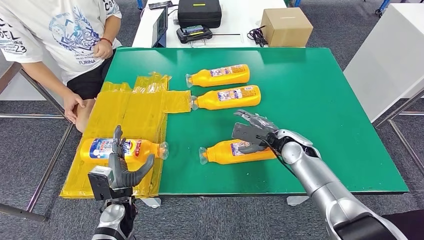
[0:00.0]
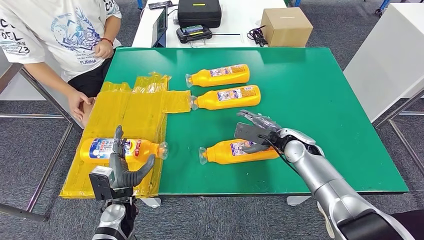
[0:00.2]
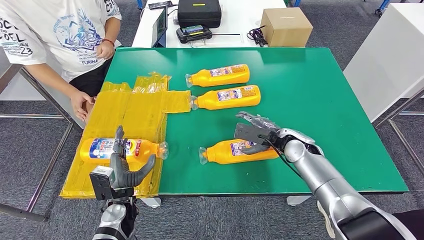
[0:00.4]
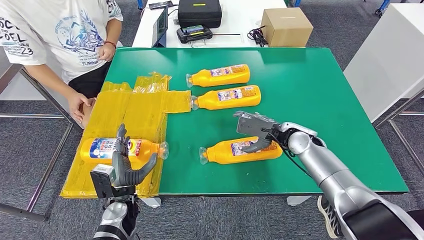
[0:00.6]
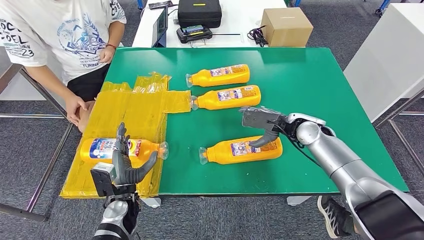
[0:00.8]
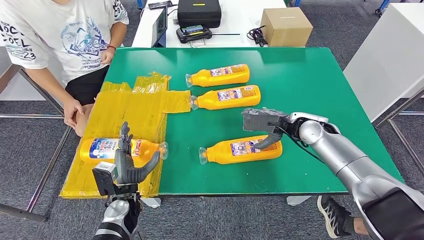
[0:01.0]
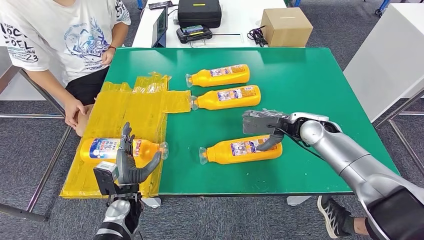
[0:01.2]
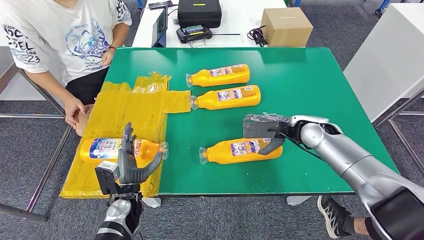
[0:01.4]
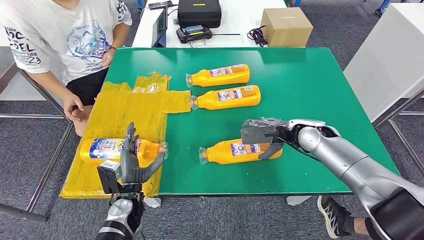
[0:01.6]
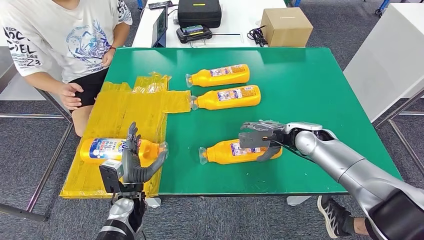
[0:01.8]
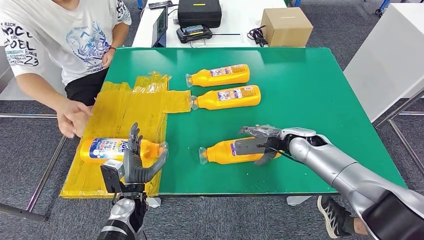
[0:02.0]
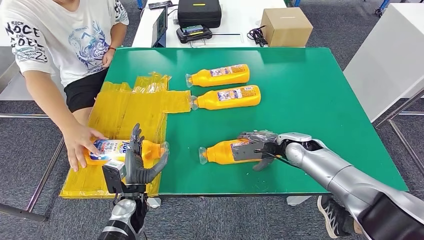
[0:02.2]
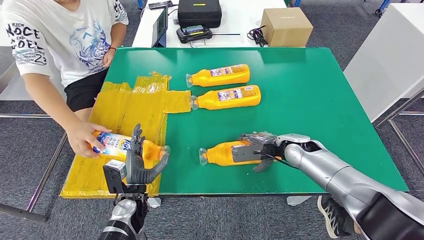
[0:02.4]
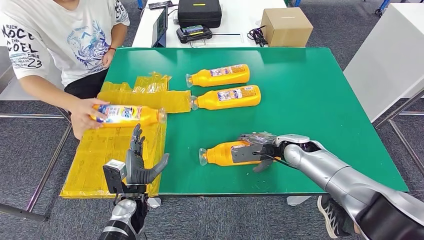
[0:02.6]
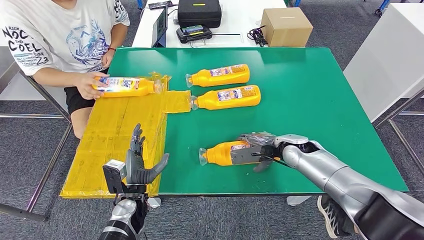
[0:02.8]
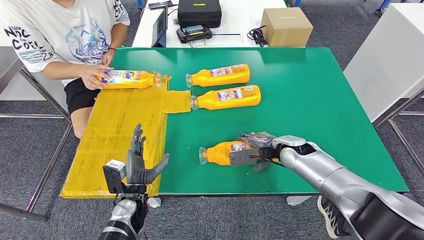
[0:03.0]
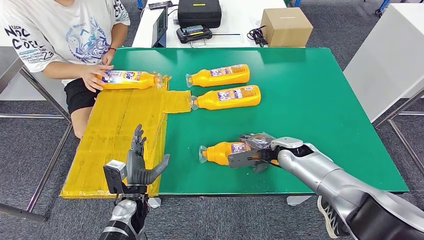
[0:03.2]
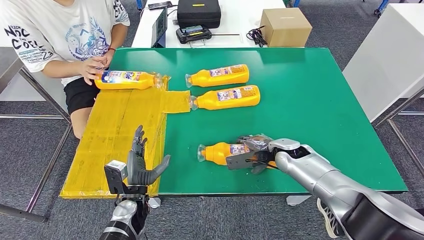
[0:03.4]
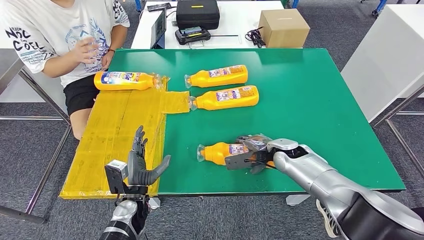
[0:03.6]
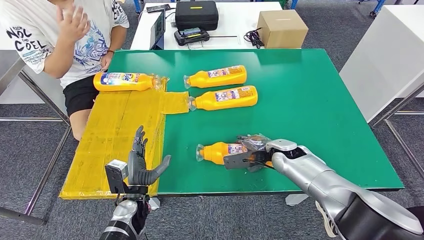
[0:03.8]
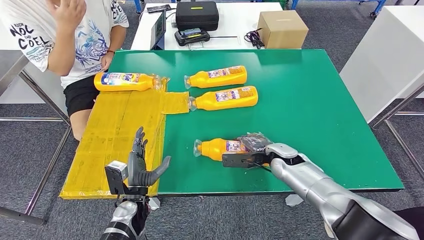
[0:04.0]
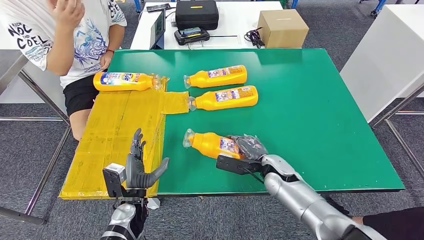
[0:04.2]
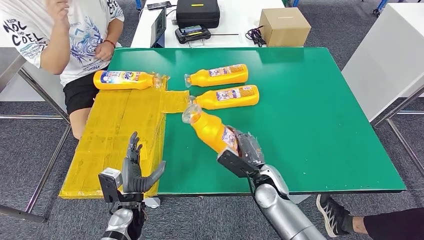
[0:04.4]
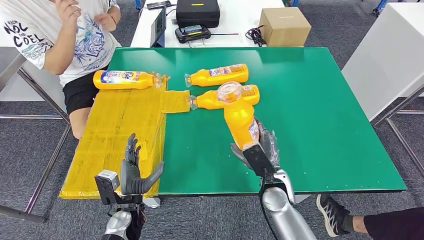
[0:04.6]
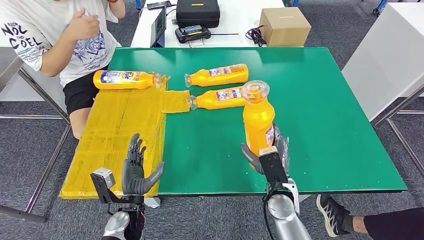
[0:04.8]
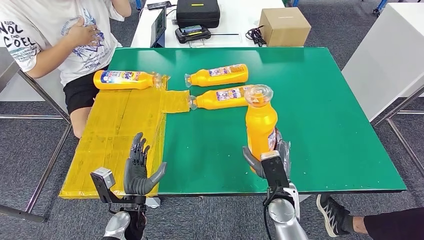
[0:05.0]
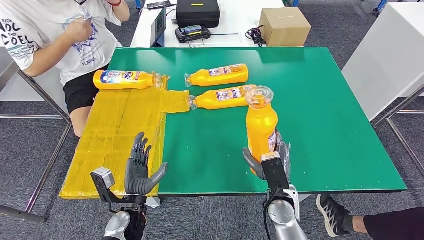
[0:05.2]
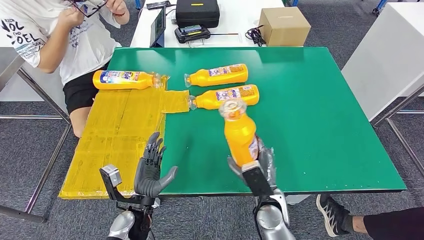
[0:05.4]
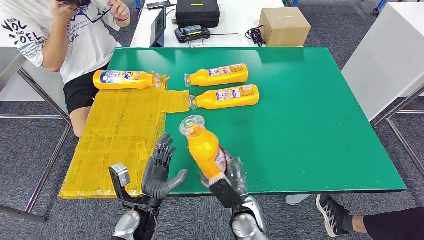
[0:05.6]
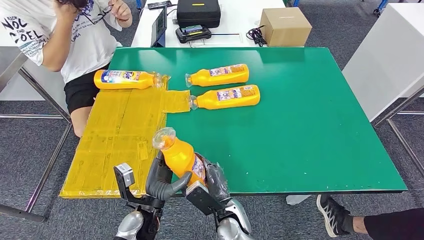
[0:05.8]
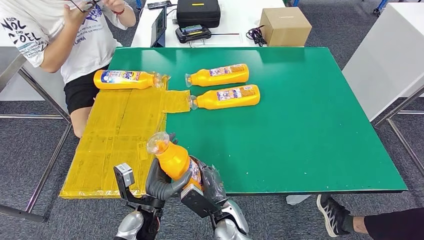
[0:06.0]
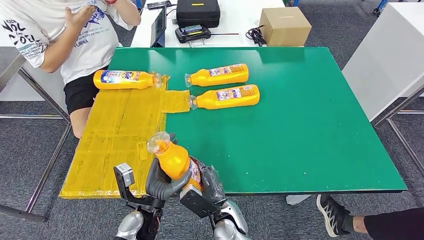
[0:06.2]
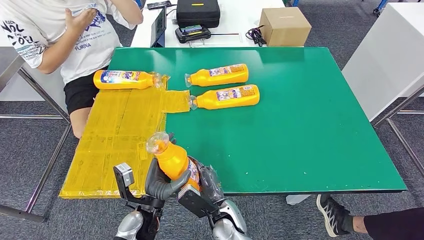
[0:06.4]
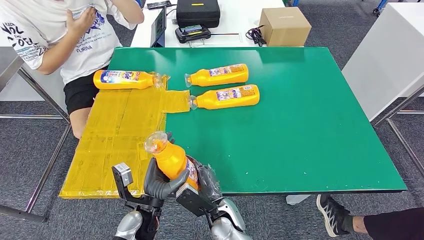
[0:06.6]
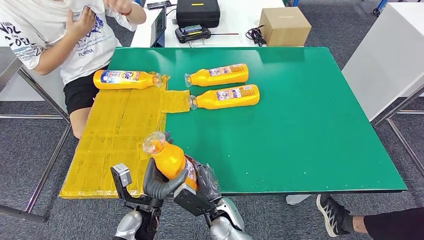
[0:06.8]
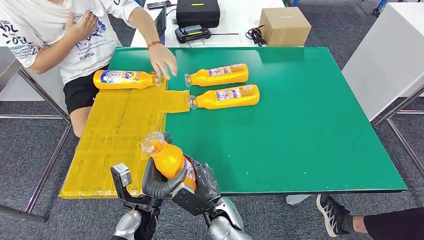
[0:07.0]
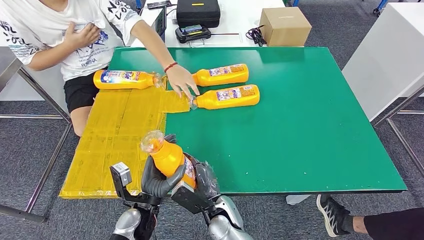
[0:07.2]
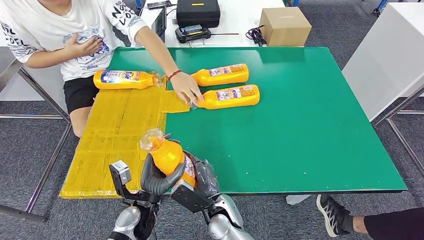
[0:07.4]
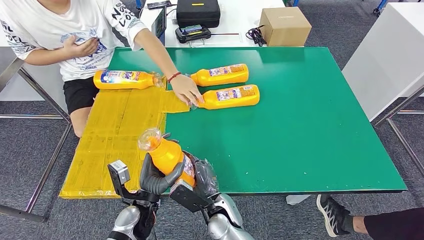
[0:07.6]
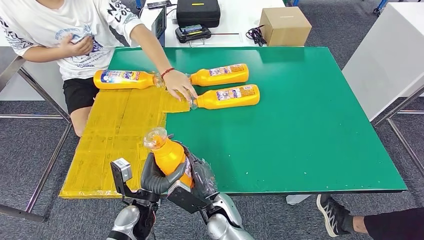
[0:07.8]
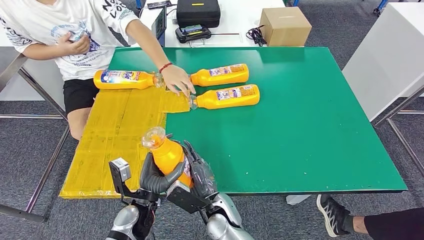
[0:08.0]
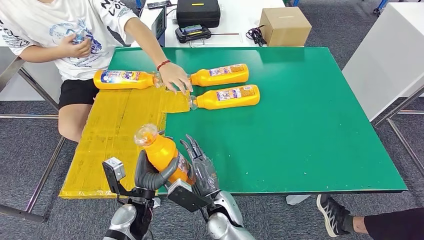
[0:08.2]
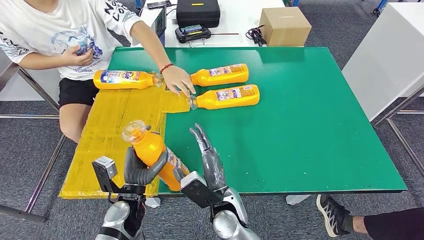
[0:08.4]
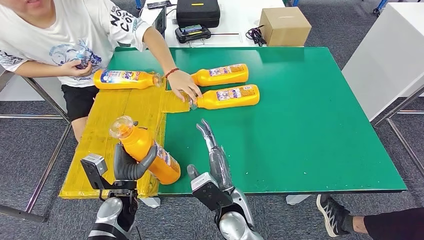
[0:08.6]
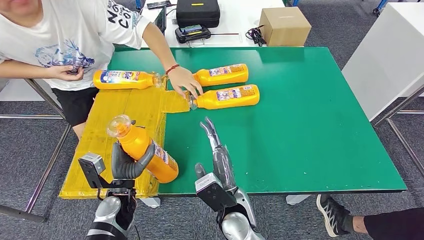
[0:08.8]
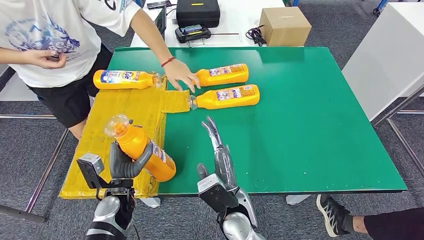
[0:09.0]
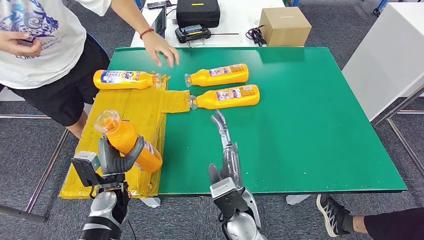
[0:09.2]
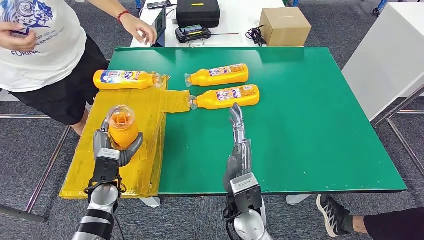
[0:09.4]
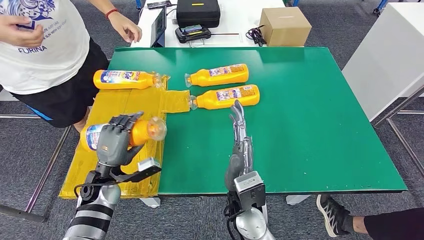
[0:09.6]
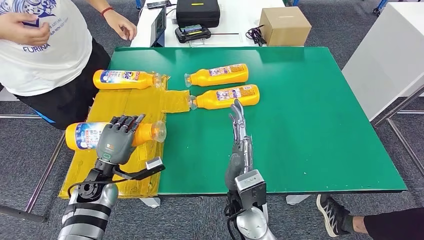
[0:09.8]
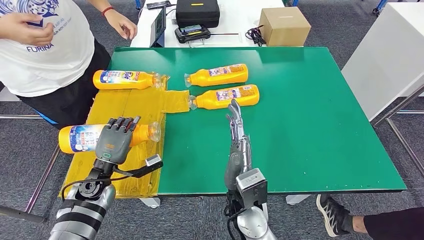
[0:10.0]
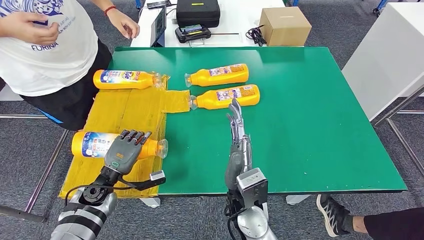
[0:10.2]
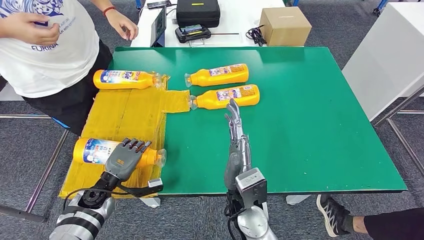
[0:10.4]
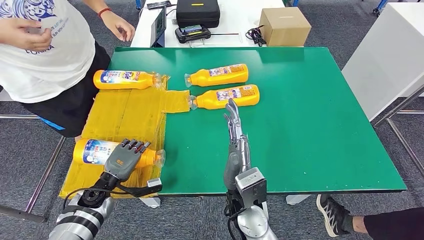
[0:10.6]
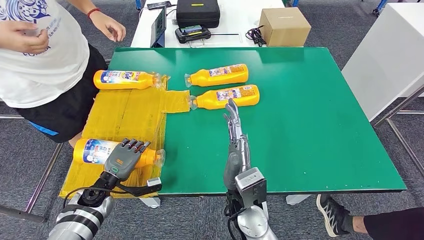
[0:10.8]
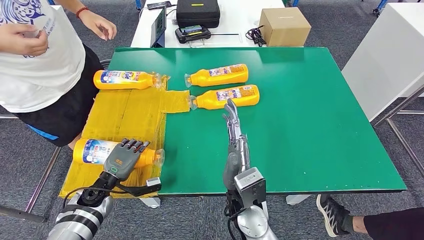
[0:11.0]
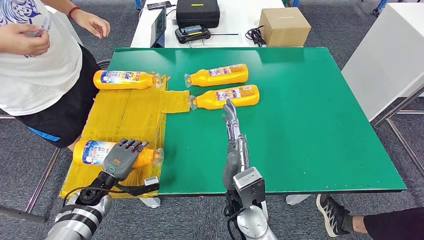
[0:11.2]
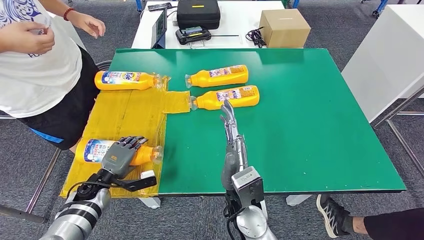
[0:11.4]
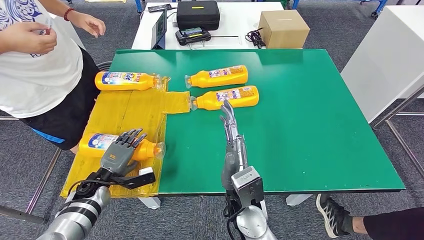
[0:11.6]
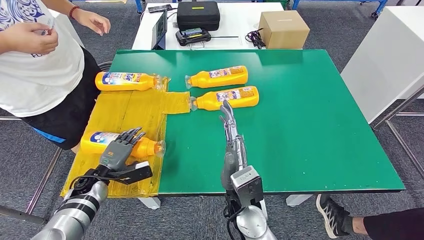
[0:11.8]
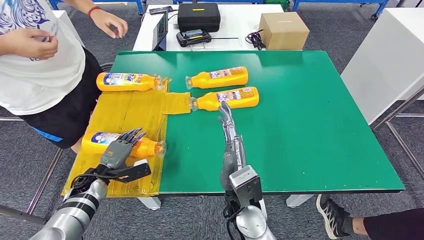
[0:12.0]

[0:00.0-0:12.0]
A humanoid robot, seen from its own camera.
Step, 0:00.0 to 0:06.0: Pick up the fast-moving consumer goods bottle from the table.
Step, 0:06.2 to 0:11.6: Flip the fast-moving consumer goods bottle to the front side.
0:00.0 to 0:01.6: The right hand moves roughly 5 cm.
0:01.6 to 0:03.0: The right hand travels downward by some 5 cm.
0:04.4 to 0:06.0: The right hand goes about 15 cm to the left and backward. Meanwhile the left hand shifts by some 5 cm.
0:06.0 to 0:07.6: There are only small adjustments of the hands.

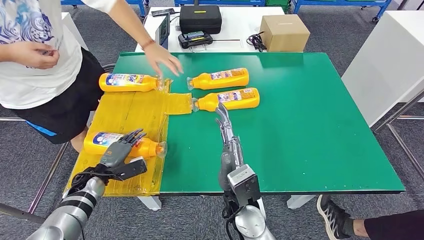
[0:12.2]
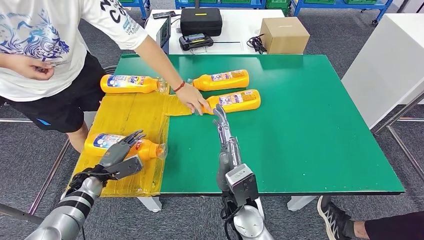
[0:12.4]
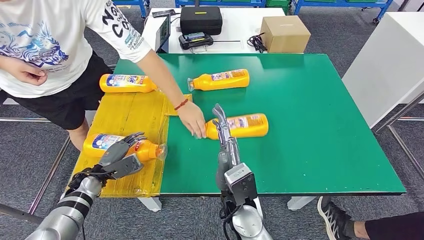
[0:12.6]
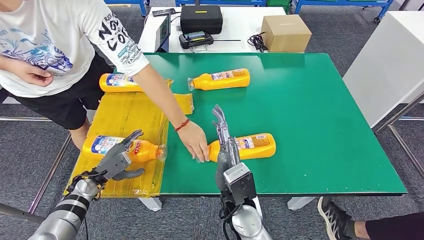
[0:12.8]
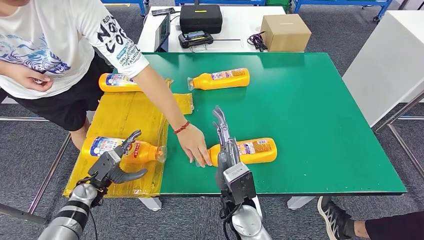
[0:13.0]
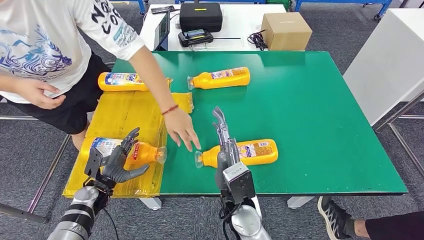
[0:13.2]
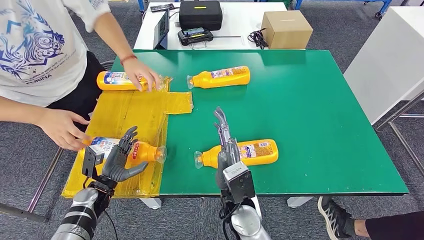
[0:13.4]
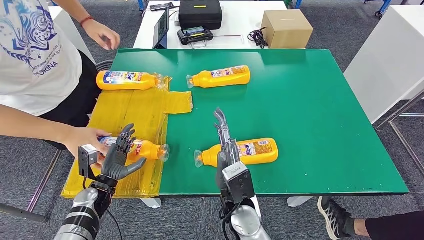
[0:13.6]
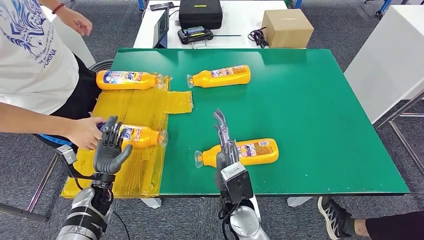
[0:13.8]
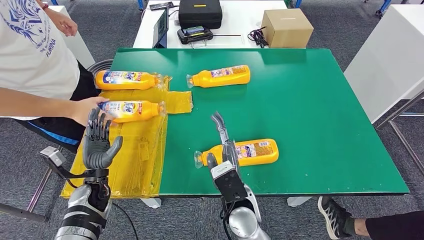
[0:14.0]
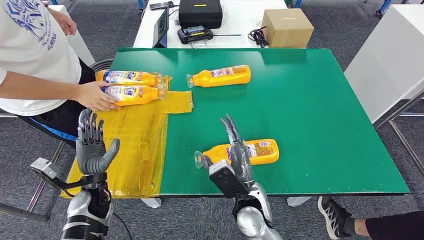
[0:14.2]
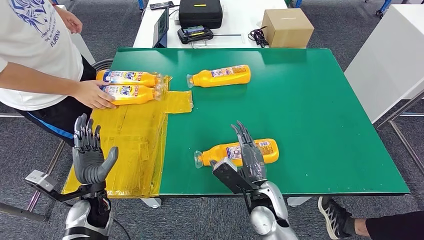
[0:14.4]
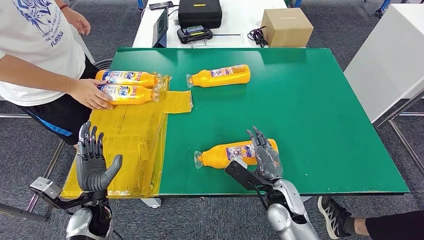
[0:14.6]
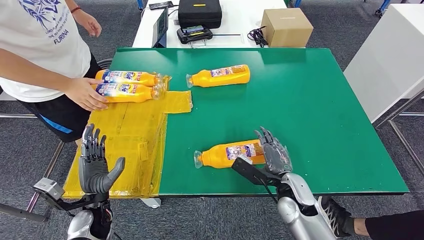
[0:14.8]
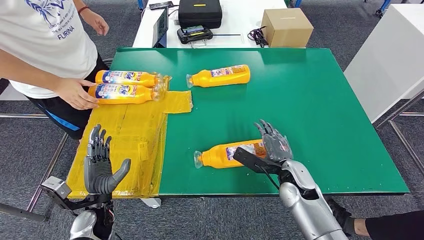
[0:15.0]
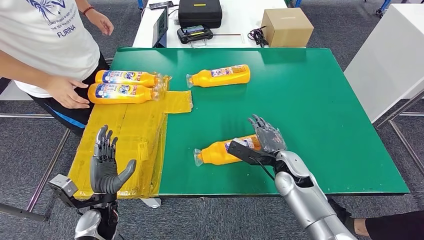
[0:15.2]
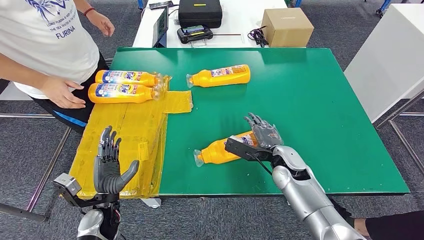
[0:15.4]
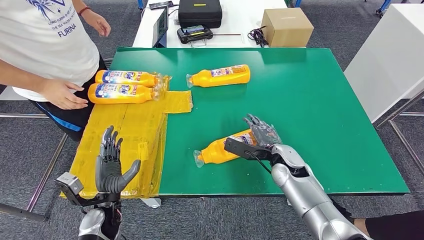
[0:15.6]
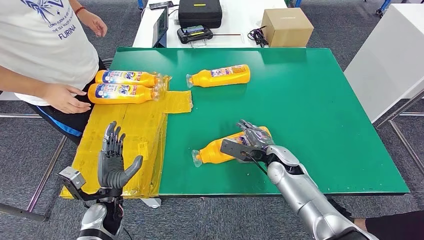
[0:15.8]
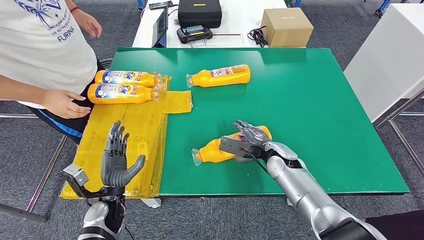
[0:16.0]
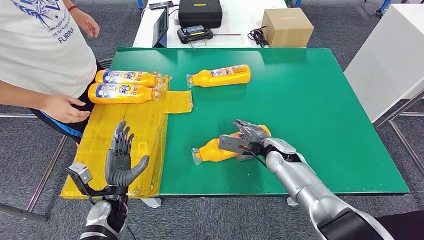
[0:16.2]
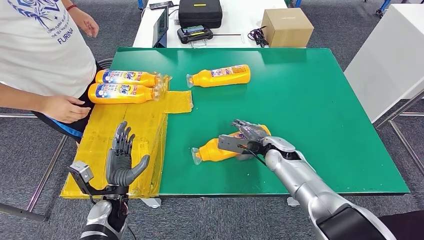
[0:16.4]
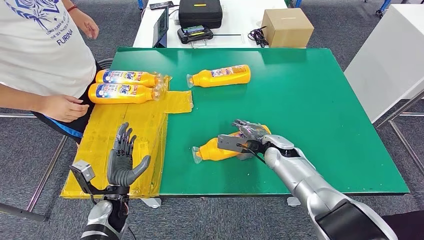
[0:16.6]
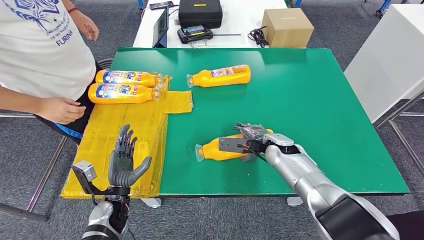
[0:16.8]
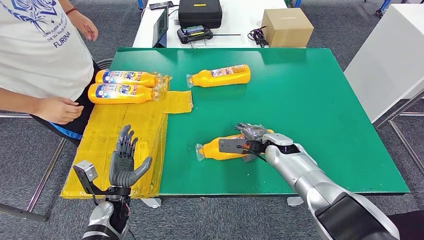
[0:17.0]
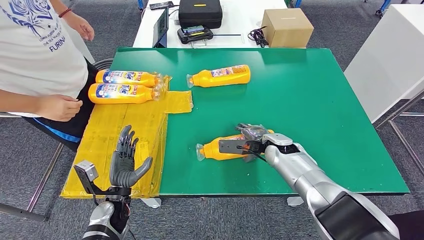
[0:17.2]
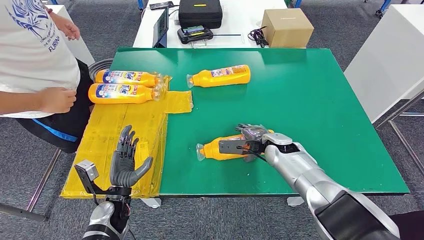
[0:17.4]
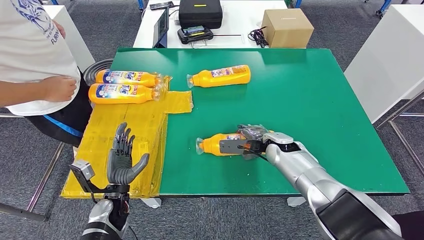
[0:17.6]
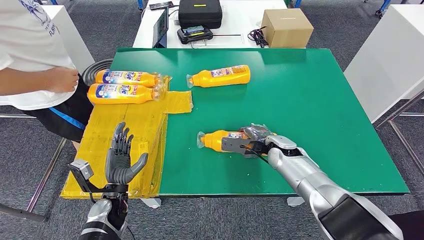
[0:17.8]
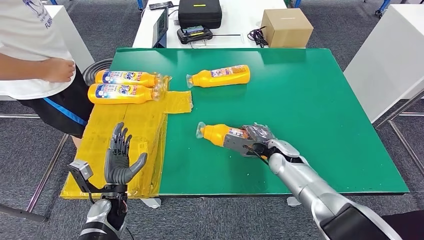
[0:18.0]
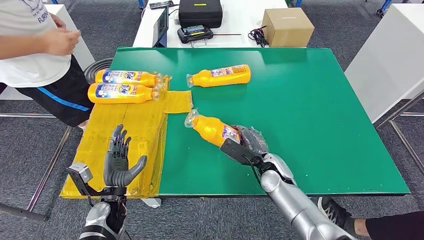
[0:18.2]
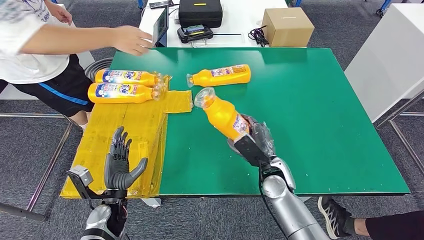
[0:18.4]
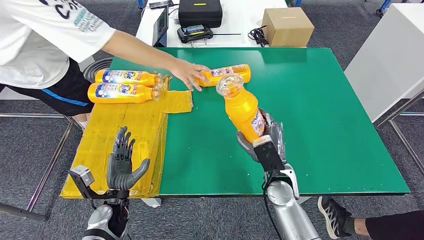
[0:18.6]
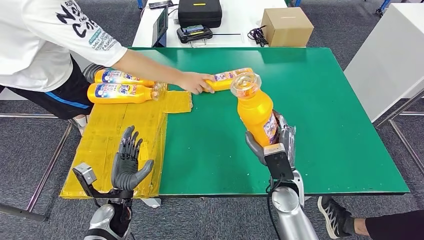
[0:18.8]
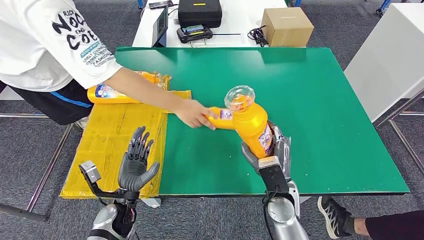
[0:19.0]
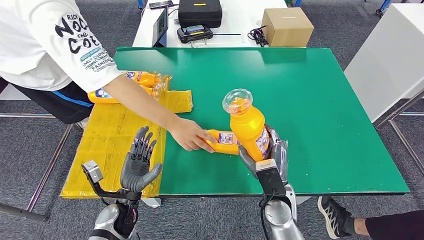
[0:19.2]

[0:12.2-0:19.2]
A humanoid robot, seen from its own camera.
0:16.4 to 0:17.8: The hands stay close to where they were, moving slightly.
